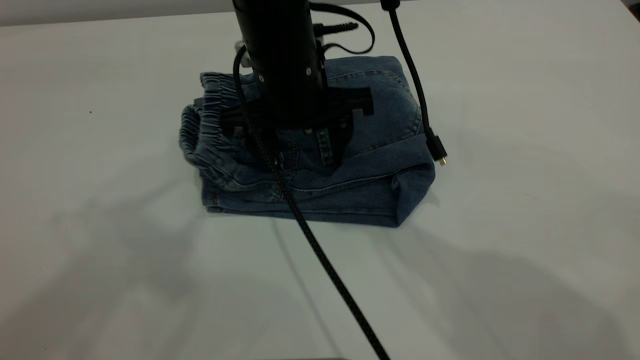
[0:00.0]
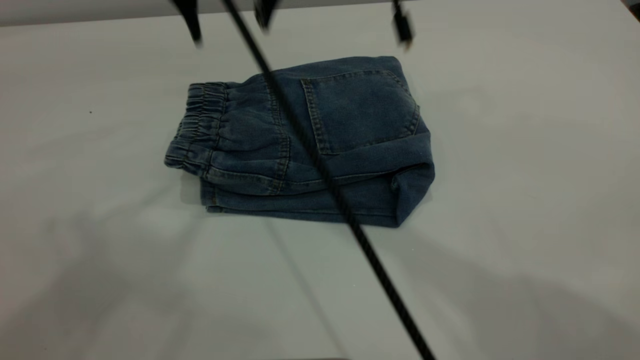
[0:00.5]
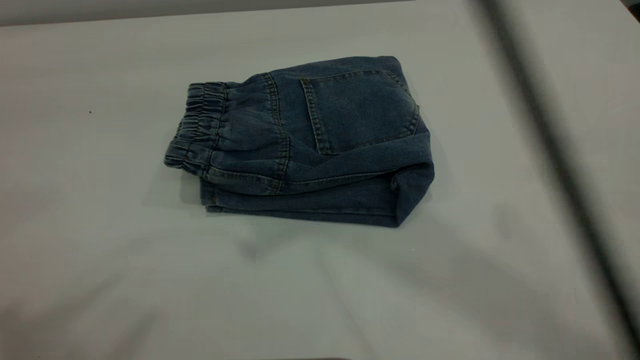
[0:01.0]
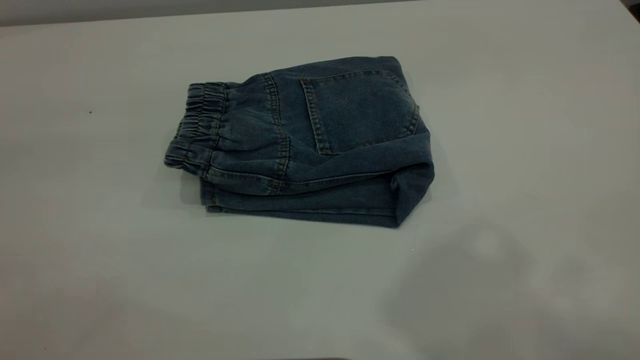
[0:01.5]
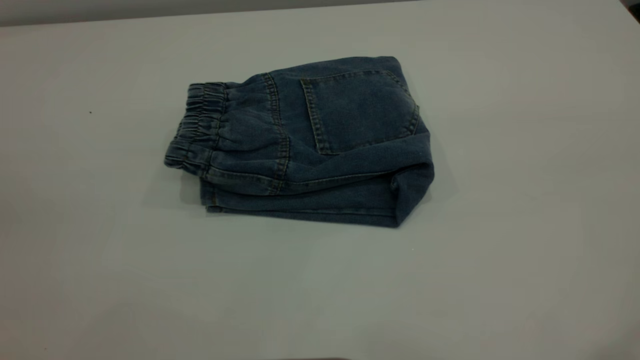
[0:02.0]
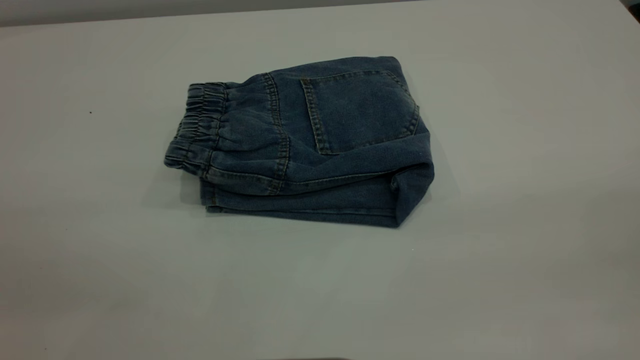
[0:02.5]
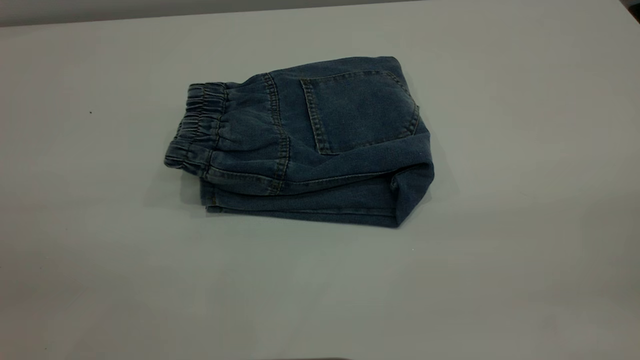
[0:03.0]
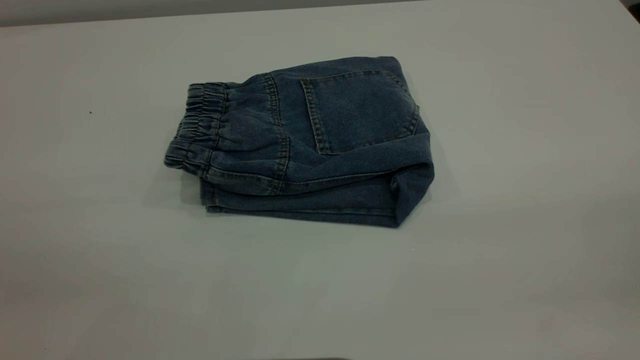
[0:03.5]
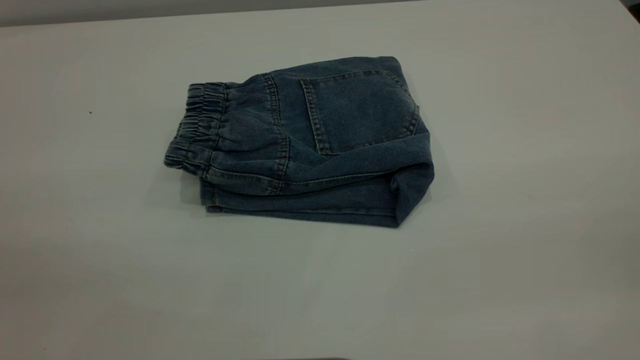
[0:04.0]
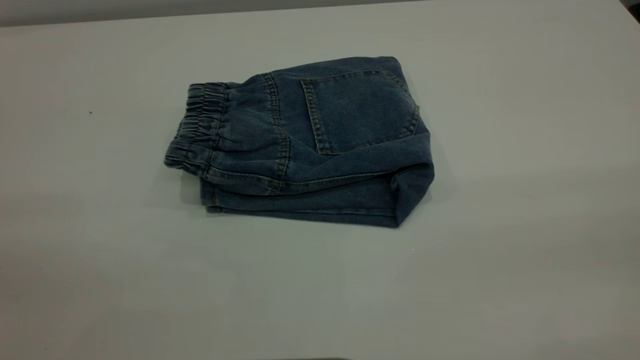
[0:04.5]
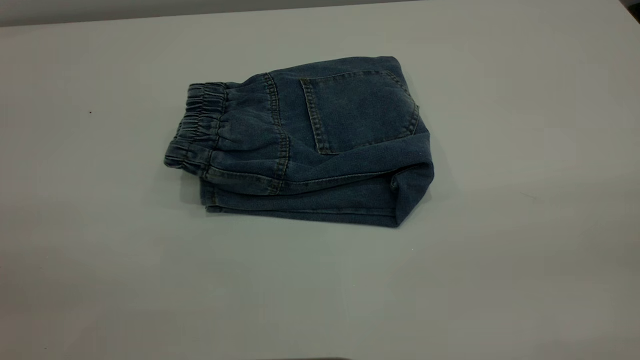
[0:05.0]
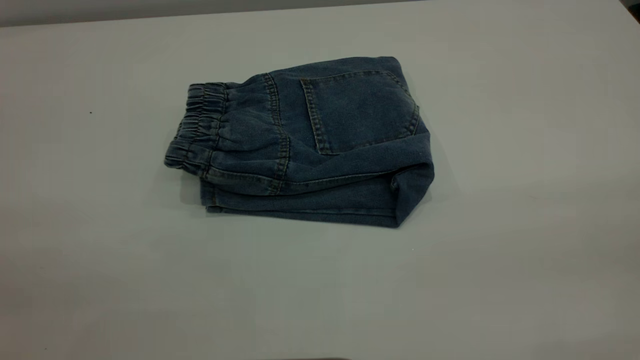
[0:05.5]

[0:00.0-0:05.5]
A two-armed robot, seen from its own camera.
0:00.0 to 0:02.0: The left gripper is displaced backward and downward by about 20 cm. Meanwhile the right gripper is displaced backward, upward and to the right by roughly 50 cm.
